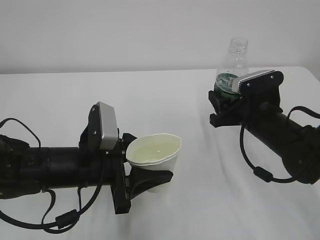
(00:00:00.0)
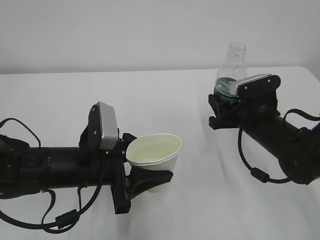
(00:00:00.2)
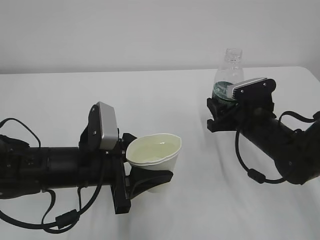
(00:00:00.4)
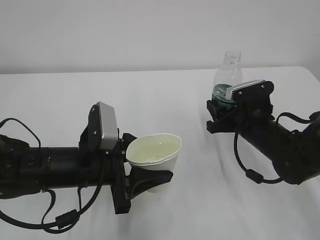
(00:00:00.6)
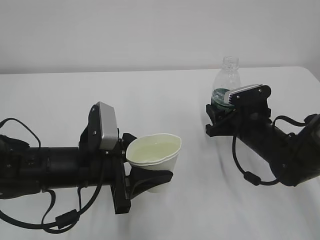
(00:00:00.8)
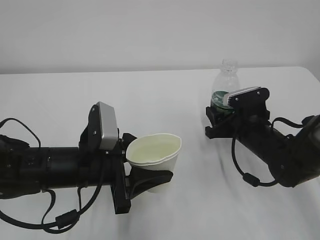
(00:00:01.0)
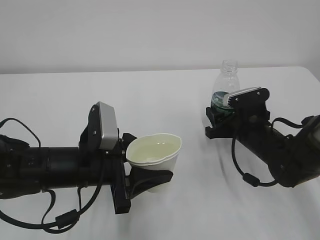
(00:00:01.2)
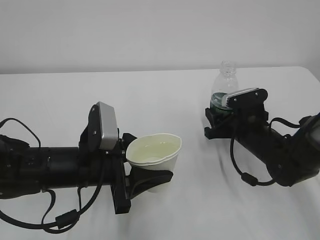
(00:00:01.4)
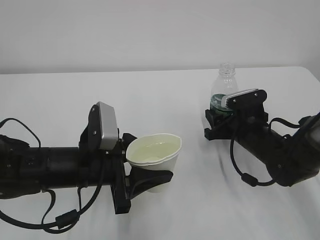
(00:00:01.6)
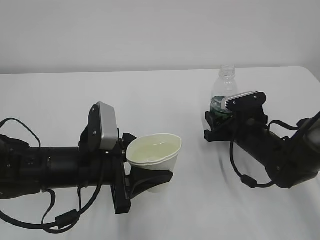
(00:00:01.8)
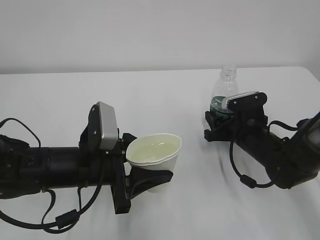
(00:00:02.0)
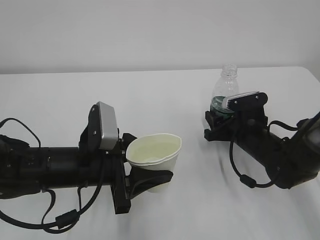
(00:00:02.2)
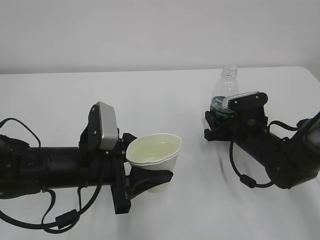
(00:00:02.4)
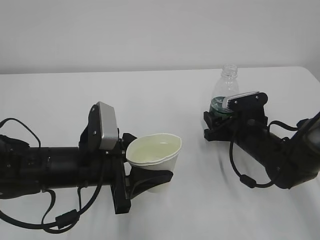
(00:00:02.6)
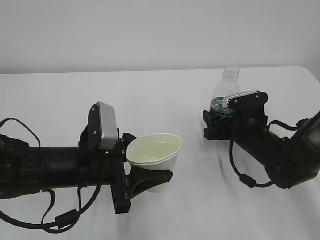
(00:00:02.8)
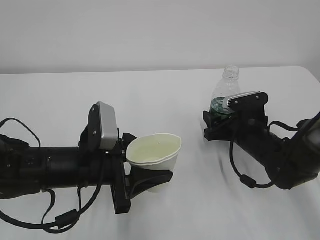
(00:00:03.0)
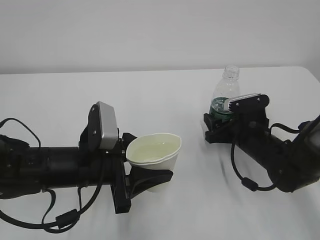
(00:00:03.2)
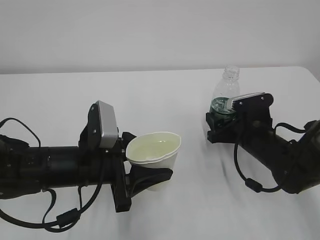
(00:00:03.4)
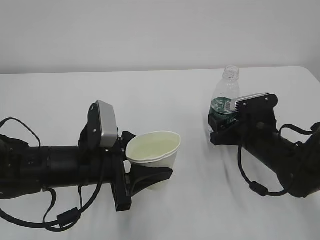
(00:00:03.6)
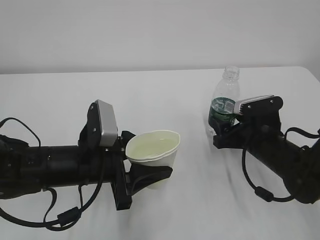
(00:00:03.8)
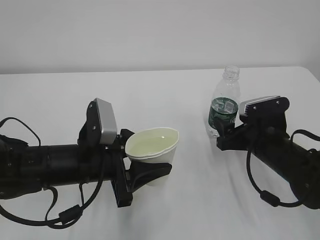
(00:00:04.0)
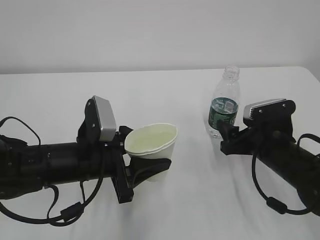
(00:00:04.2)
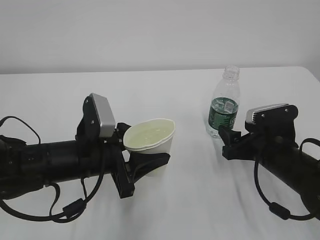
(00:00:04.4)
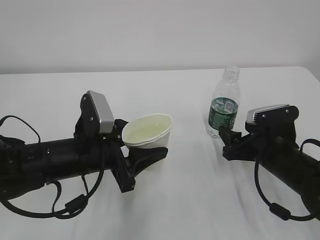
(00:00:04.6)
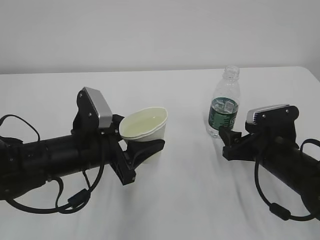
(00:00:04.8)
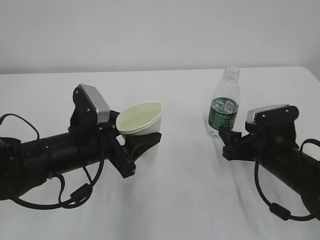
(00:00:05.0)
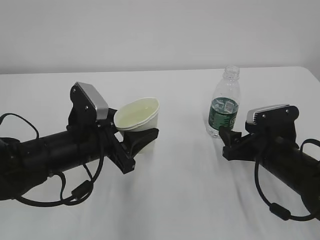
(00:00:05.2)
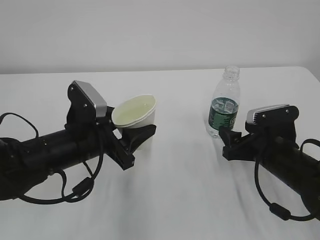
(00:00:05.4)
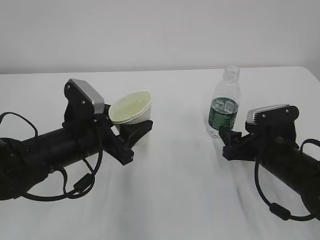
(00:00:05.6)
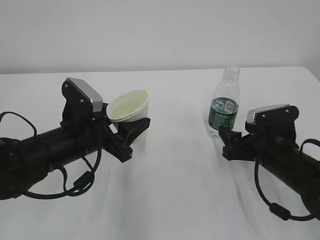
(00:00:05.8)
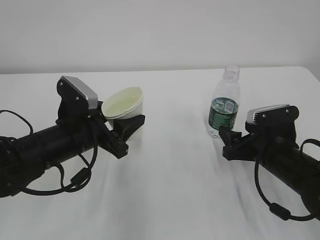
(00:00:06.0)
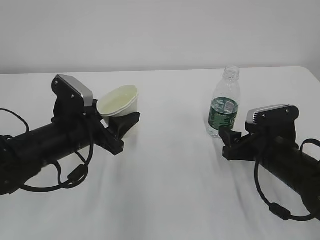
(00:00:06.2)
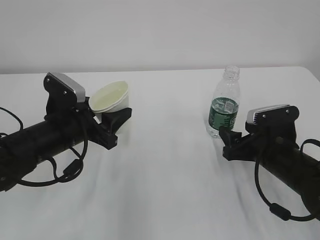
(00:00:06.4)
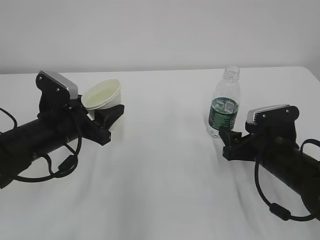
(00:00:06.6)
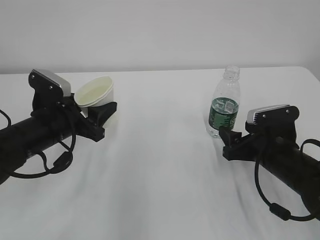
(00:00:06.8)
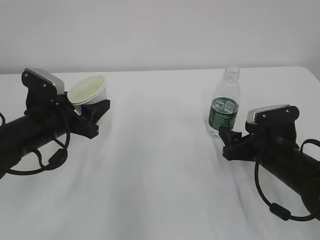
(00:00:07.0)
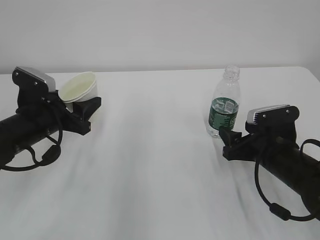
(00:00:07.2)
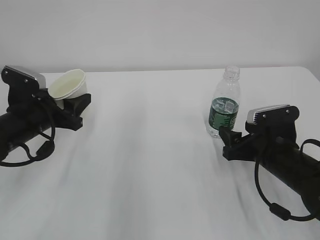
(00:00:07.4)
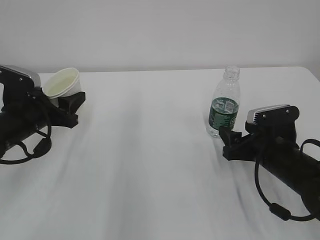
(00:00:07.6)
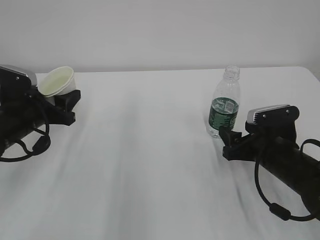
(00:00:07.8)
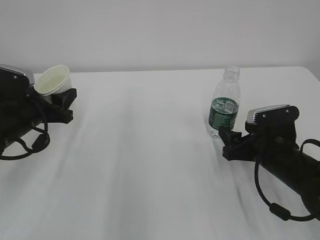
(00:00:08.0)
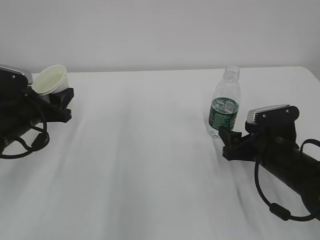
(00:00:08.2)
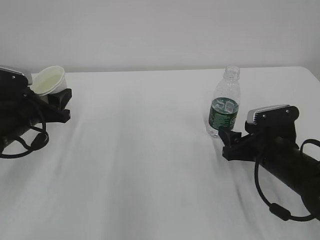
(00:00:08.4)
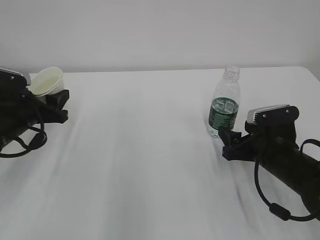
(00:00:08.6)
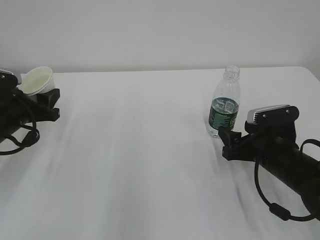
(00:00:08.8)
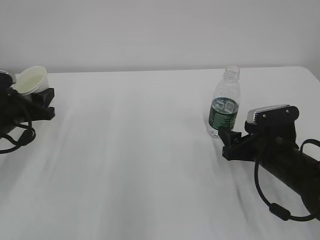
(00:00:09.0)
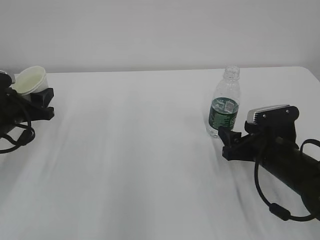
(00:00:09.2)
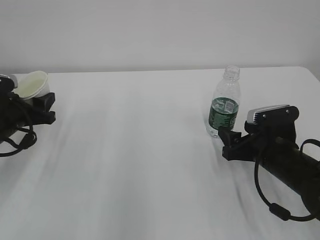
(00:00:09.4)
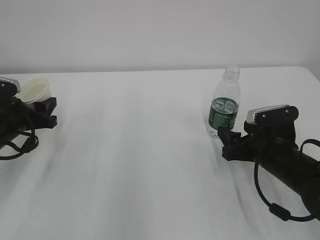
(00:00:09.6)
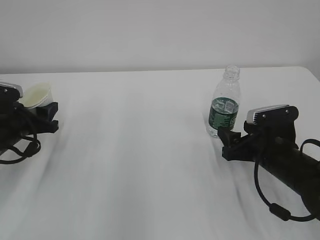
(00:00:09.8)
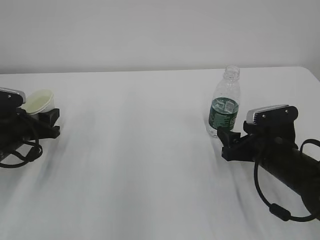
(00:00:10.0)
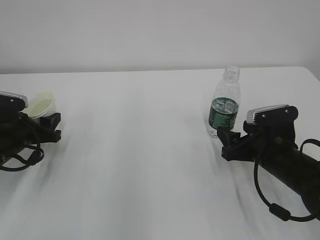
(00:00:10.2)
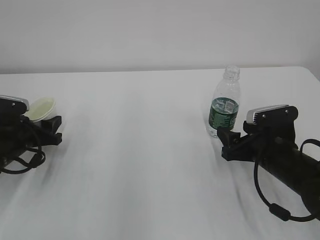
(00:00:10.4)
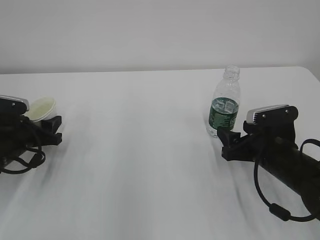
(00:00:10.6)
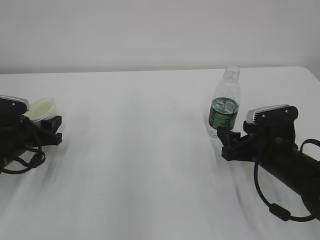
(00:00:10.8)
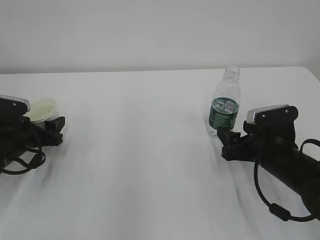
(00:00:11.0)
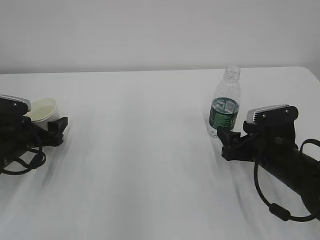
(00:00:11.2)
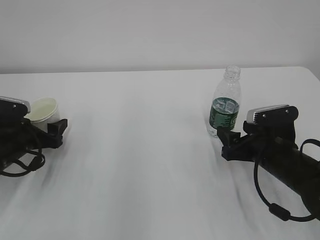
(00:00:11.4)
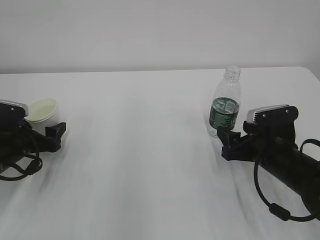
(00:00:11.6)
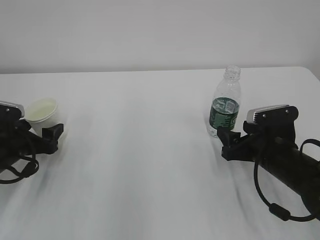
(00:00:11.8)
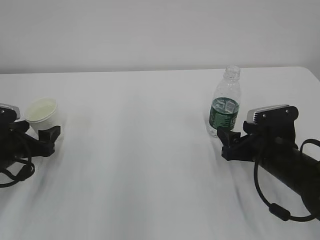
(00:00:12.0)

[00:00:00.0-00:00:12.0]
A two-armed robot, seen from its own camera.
00:00:00.0 to 00:00:01.6: The right gripper heads downward, covering approximately 5 cm.
00:00:01.6 to 00:00:03.0: The right gripper opens.
00:00:03.0 to 00:00:04.4: The right gripper goes approximately 5 cm backward.
00:00:06.0 to 00:00:07.6: The left gripper is displaced to the left by some 10 cm.
00:00:07.6 to 00:00:09.0: The grippers move only a little.
00:00:09.0 to 00:00:10.4: The left gripper is displaced downward by approximately 5 cm.
00:00:10.4 to 00:00:12.0: The left gripper opens up.

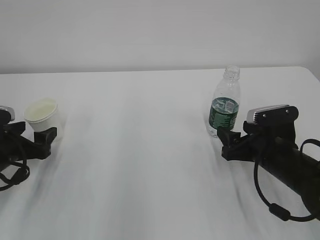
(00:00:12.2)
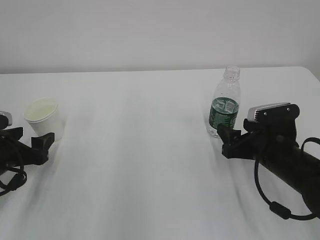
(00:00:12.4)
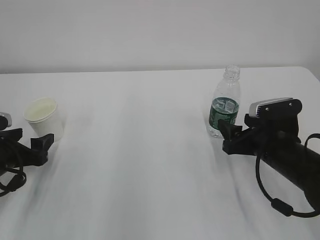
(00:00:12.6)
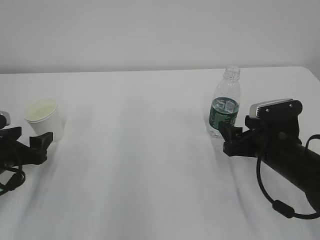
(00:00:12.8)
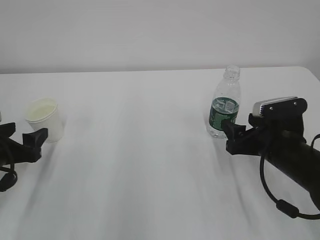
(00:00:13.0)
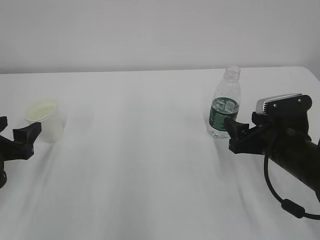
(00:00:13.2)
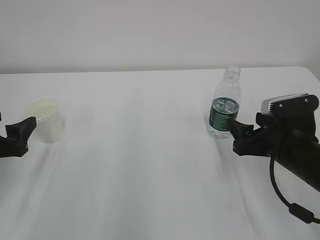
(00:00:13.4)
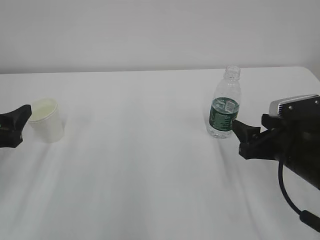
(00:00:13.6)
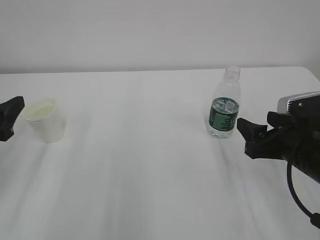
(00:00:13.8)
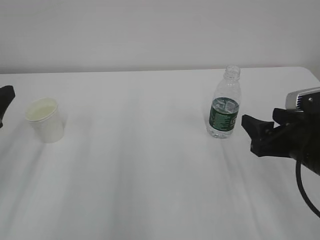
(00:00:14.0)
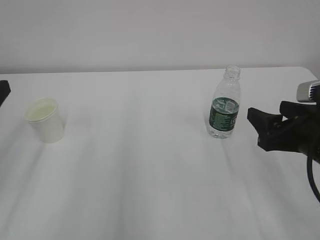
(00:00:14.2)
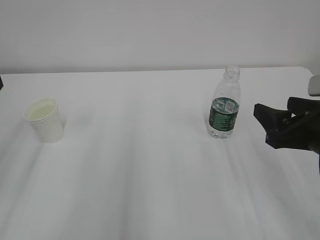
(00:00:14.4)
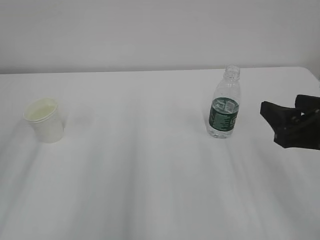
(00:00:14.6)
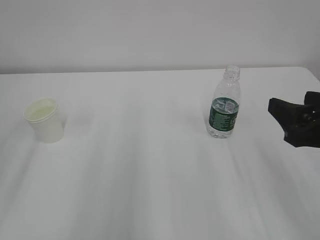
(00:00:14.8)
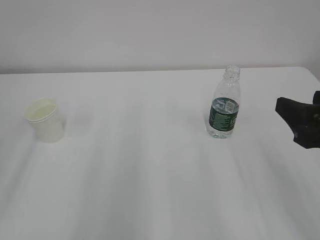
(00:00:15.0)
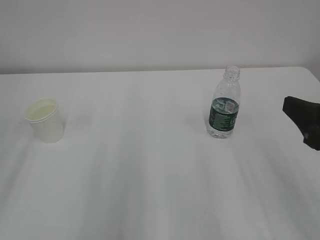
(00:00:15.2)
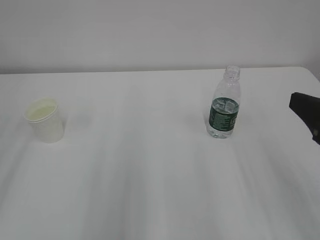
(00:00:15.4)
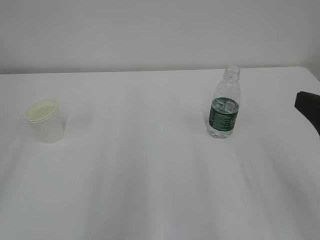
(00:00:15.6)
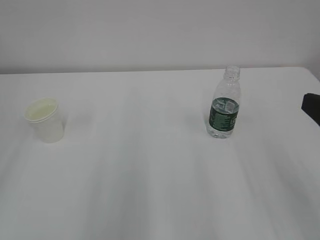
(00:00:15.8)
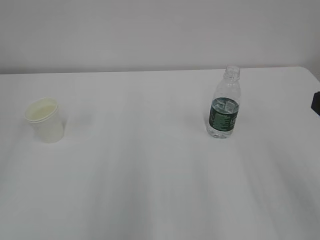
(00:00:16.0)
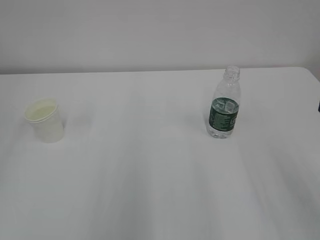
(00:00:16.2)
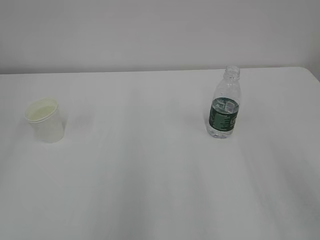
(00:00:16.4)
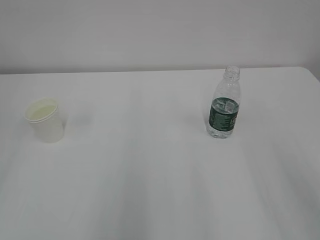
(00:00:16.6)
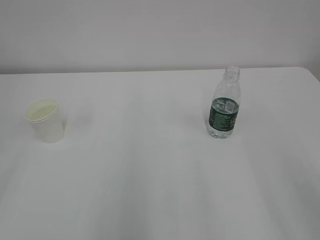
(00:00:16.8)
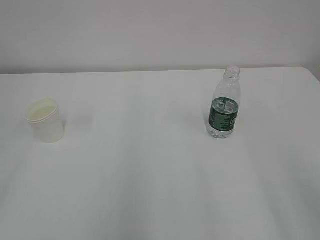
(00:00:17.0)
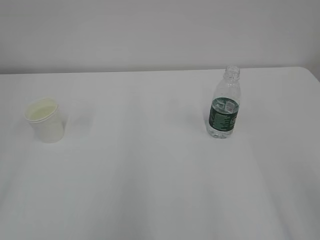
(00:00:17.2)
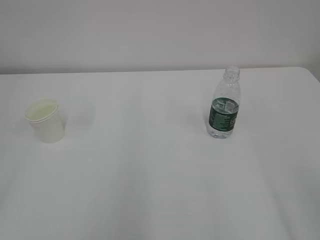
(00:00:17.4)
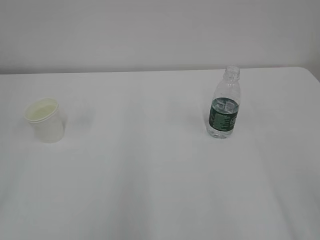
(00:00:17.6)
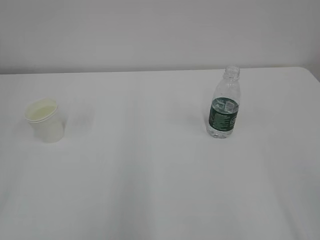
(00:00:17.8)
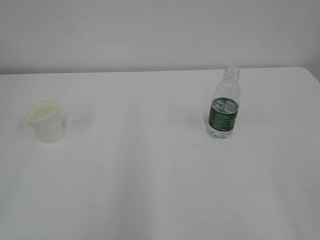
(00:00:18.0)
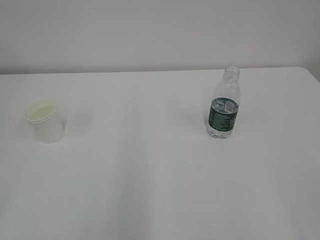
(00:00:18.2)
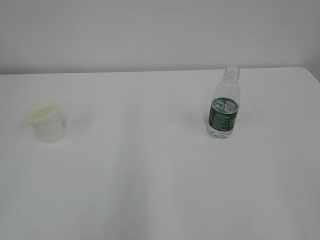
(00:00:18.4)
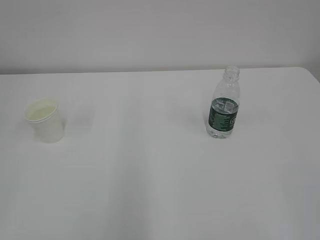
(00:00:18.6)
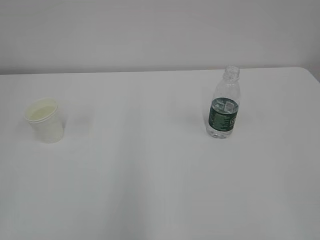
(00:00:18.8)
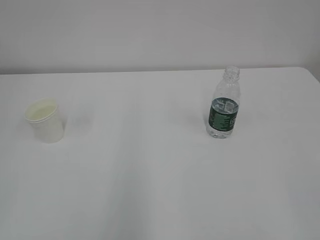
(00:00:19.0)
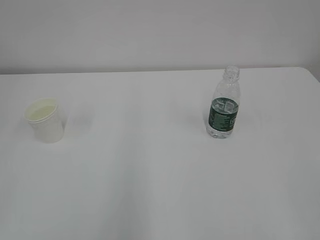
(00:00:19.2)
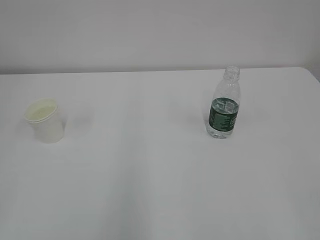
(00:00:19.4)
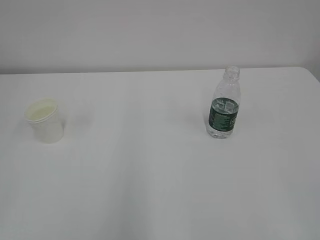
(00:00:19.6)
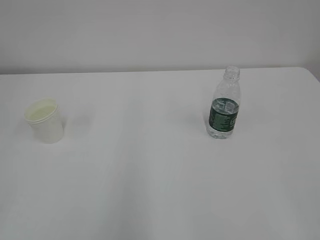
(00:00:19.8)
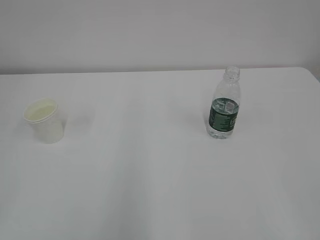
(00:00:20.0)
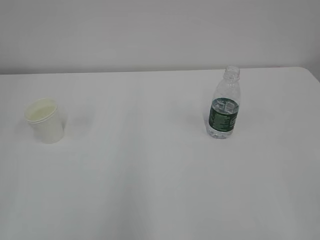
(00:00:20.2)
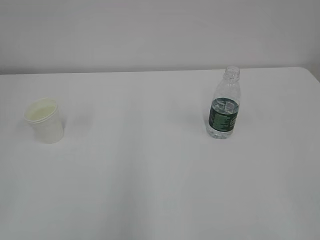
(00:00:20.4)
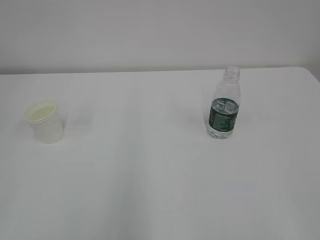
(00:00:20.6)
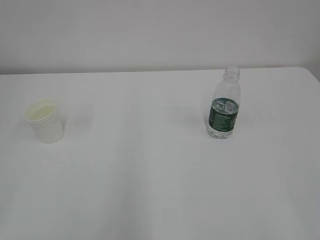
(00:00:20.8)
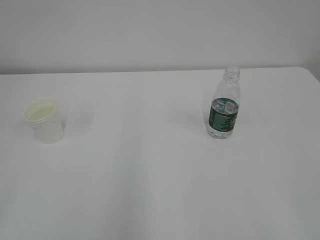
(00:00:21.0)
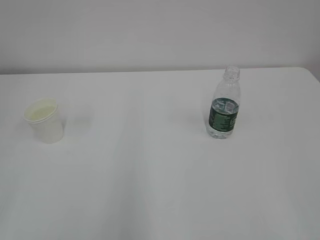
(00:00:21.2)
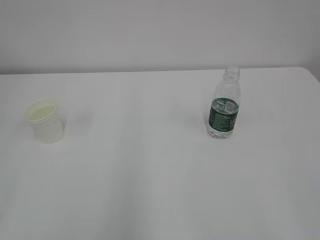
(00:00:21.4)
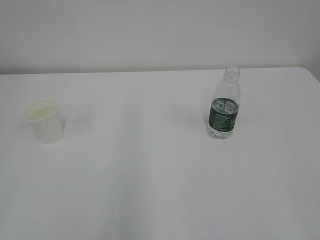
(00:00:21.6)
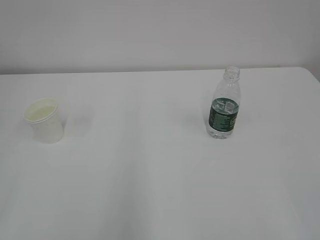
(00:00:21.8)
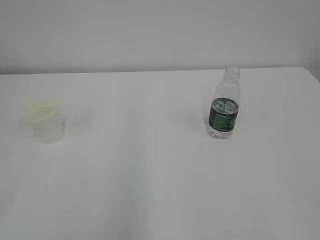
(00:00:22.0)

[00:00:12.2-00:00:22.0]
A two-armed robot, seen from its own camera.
00:00:12.2 to 00:00:13.6: The right gripper moves roughly 5 cm. The left gripper goes some 10 cm upward and backward.
00:00:13.6 to 00:00:15.0: Both grippers travel together upward and backward, some 15 cm.
00:00:15.0 to 00:00:16.4: The right gripper heads upward and backward, covering approximately 10 cm.
00:00:19.2 to 00:00:20.6: Both grippers stay put.
